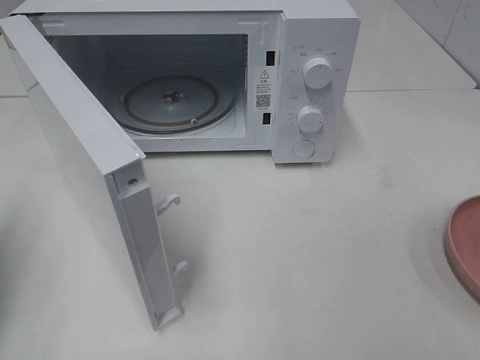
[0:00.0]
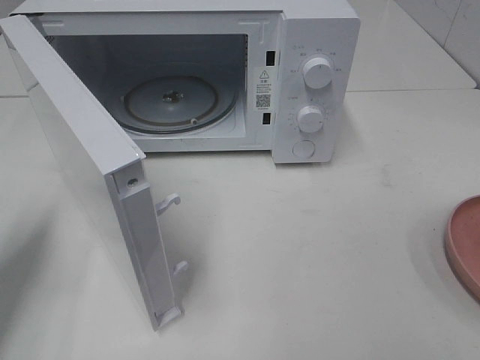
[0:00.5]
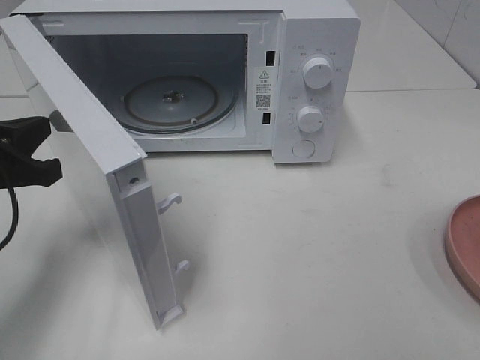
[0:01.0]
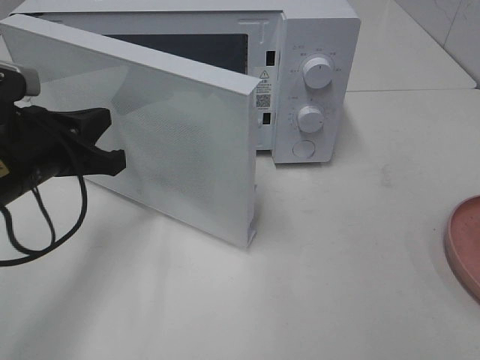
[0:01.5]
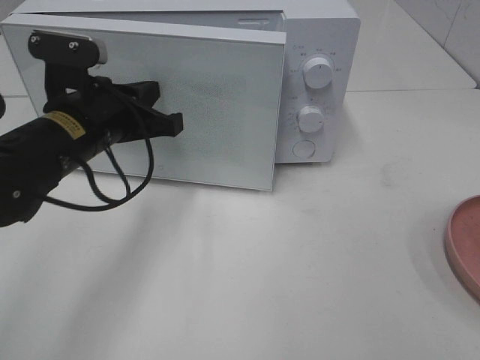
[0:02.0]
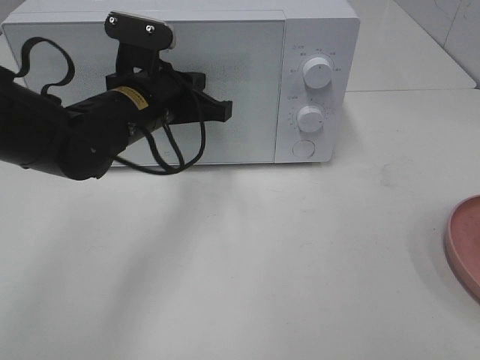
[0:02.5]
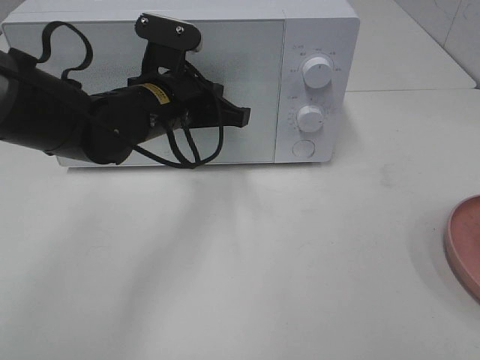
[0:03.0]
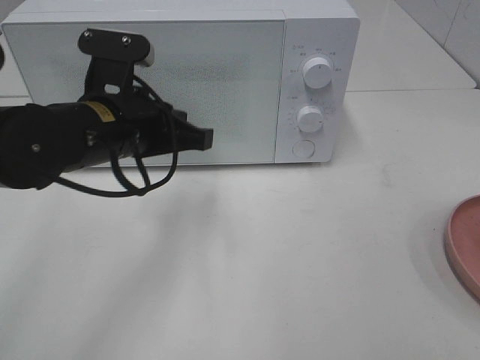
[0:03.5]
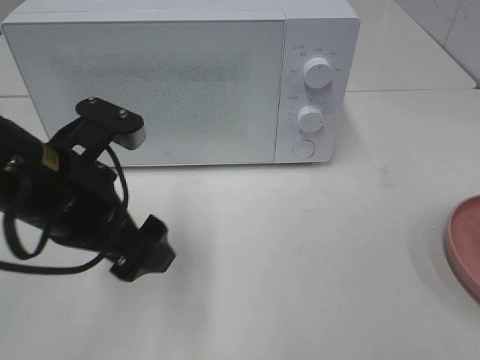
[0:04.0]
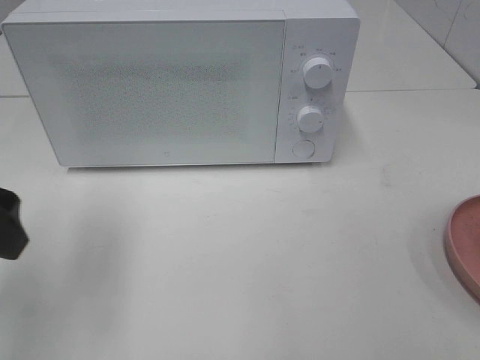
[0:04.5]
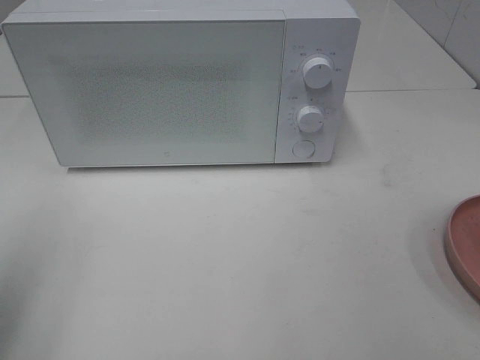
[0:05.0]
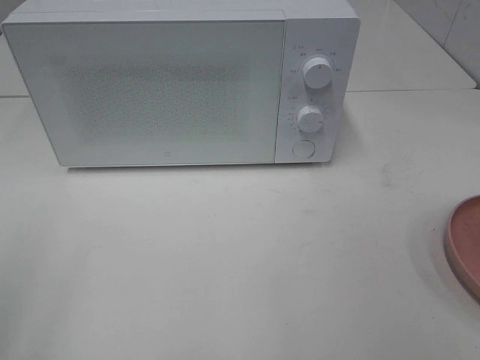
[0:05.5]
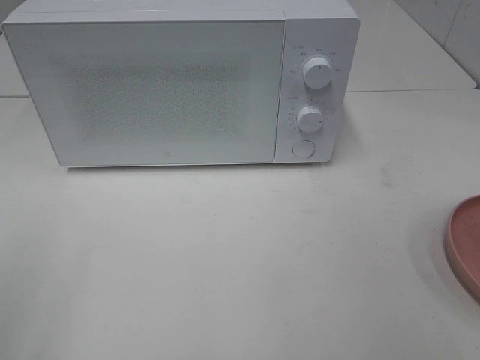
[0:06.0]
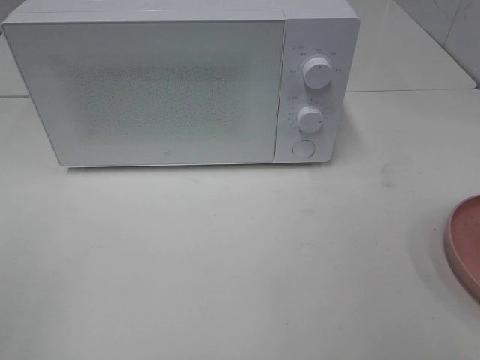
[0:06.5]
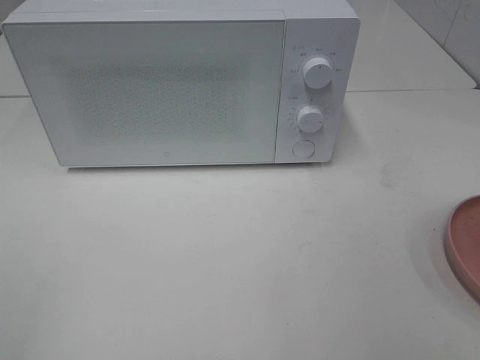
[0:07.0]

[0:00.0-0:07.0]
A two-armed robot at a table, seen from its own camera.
Task of the whole recording: Heat the burger.
Step, 0.0 to 3.5 s: Left hand: close the microwave door.
0.0 to 2.0 s: The left gripper moves to the right and forward, roughly 25 cm.
3.5 to 5.0 s: The left gripper moves to the left, backward and upward, approximately 25 cm, and opens up.
5.0 to 7.0 s: The left gripper is displaced backward by some 15 cm.

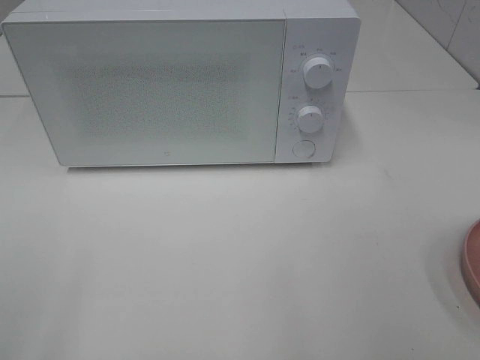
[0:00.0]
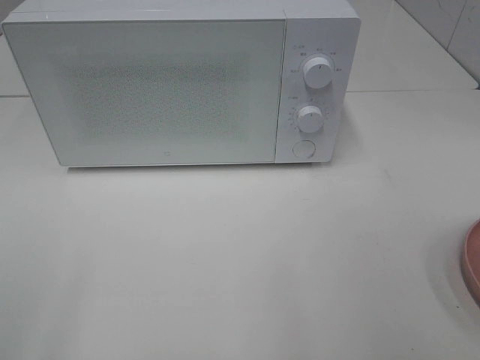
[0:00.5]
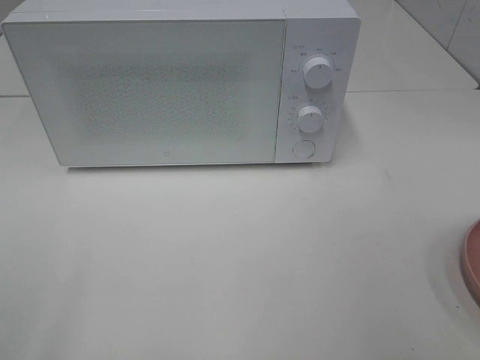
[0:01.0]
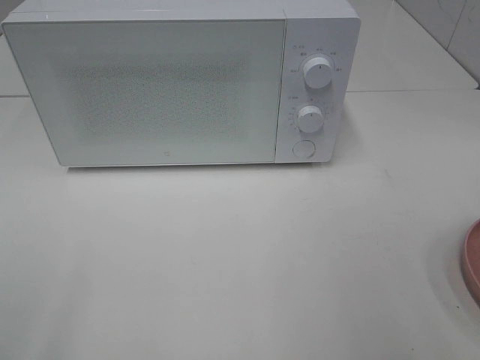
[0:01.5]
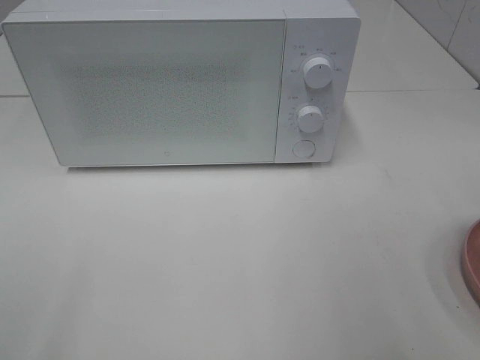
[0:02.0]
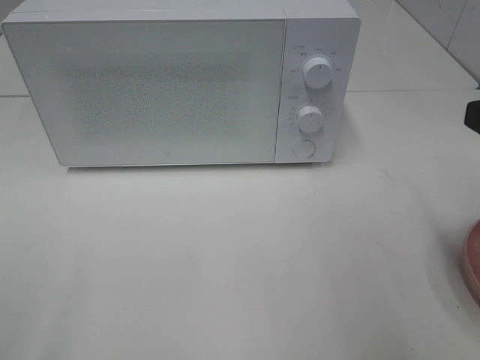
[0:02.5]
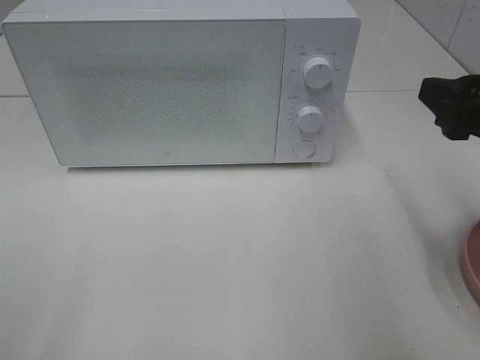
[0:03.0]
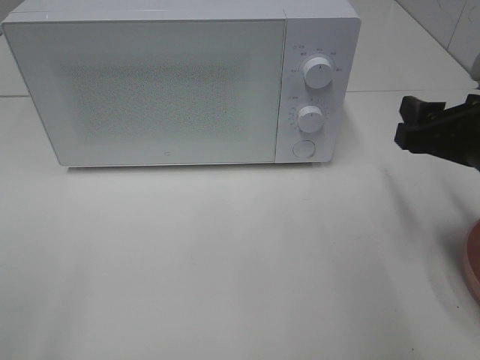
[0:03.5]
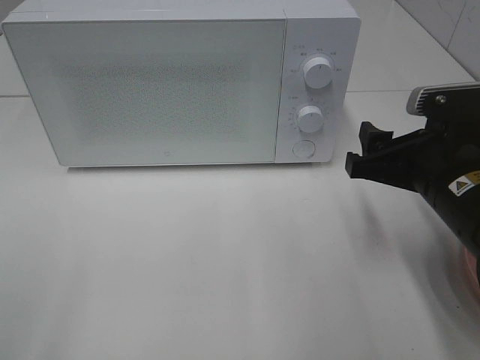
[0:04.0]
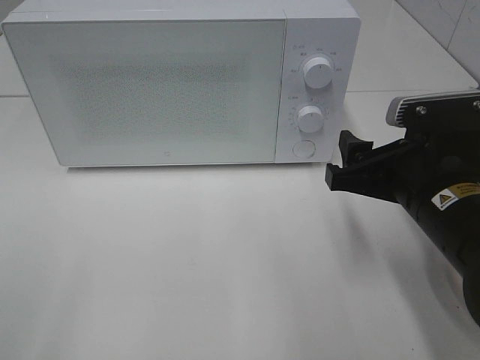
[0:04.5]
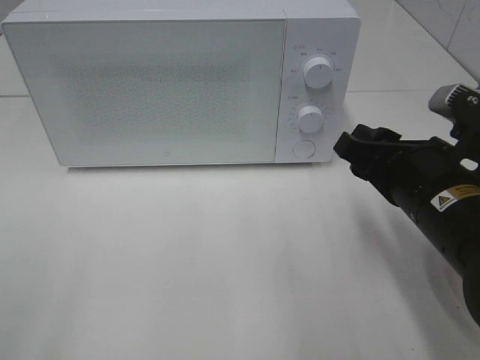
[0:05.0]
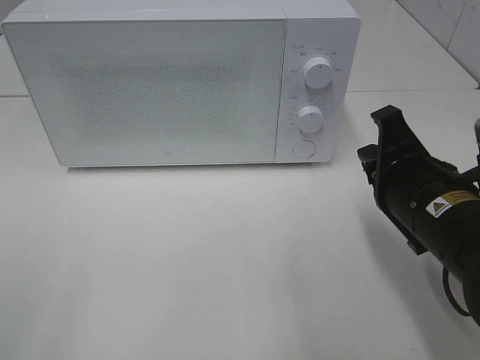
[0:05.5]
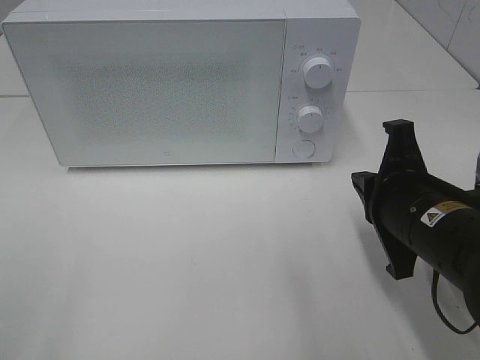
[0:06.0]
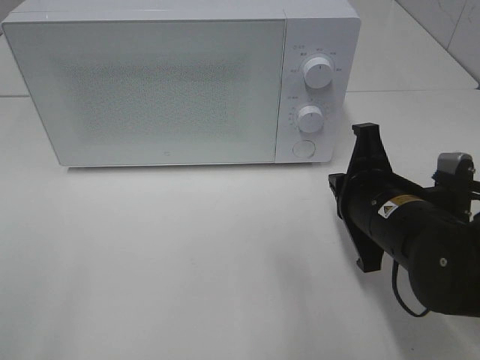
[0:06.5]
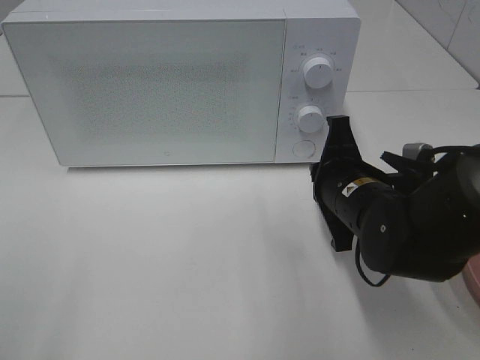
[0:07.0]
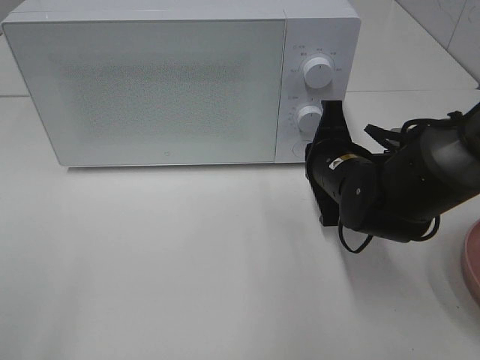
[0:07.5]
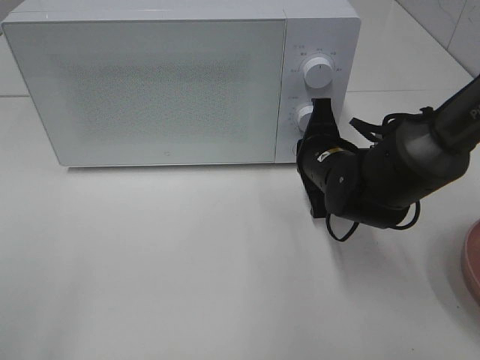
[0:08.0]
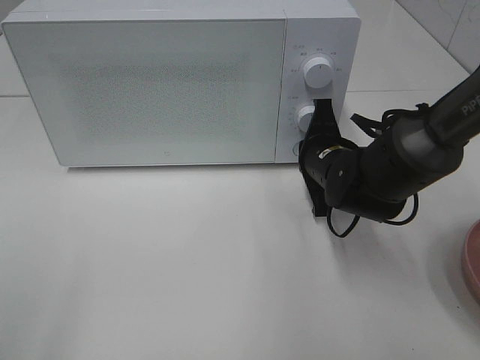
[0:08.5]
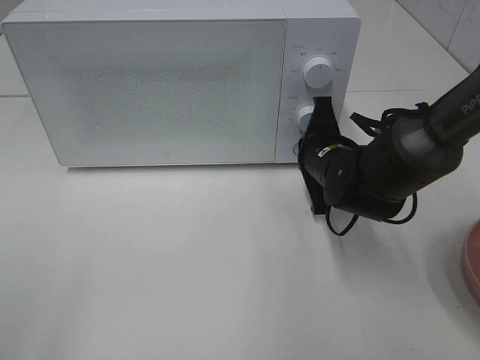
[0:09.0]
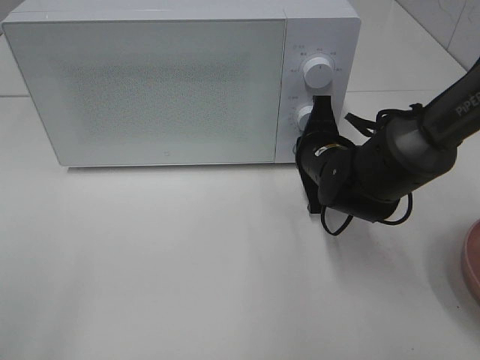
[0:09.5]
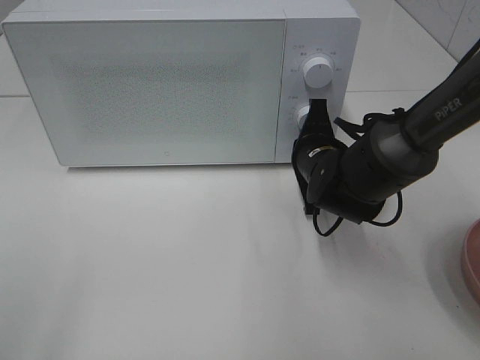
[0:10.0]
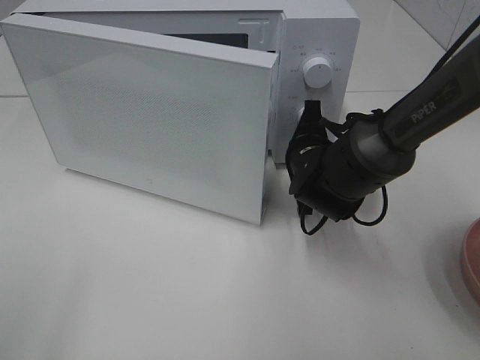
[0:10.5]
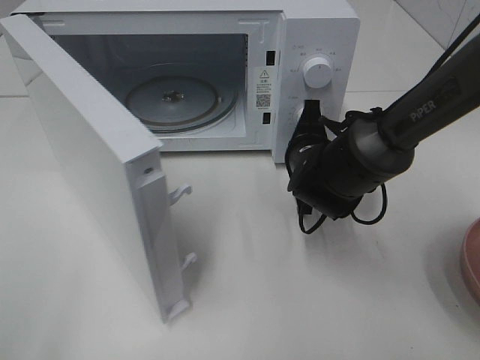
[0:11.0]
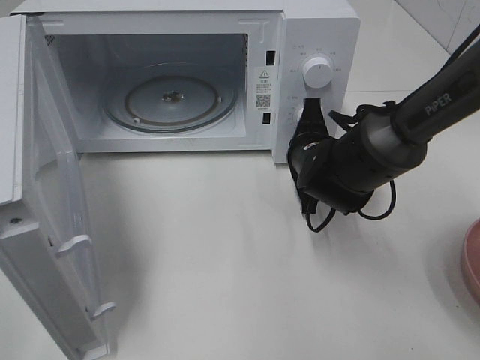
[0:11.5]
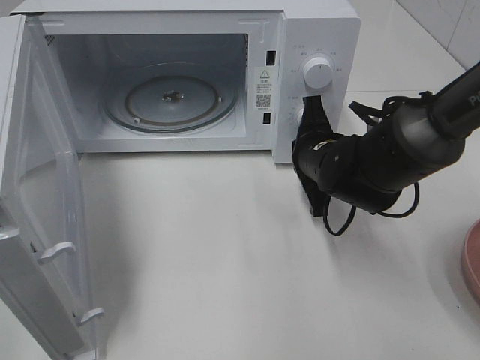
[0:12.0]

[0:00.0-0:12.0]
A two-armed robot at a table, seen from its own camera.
Task of the whole recording: Heat the burger.
Step, 0.0 to 12.0 s: Right hand: press the switch.
2.0 to 4.0 s: The right gripper shifts approximately 20 cm downward, forward and to the left.
4.0 to 6.0 s: The right gripper closes up.
6.0 to 8.0 s: The right gripper travels forward and downward by approximately 15 cm.
8.0 to 10.0 s: The grippers move only a little.

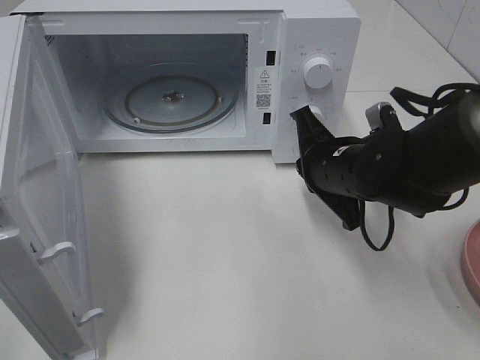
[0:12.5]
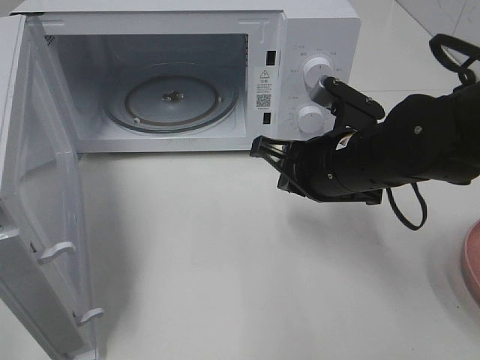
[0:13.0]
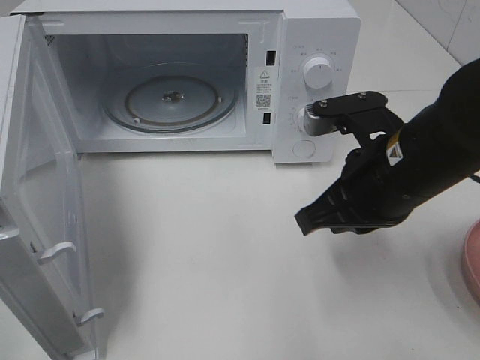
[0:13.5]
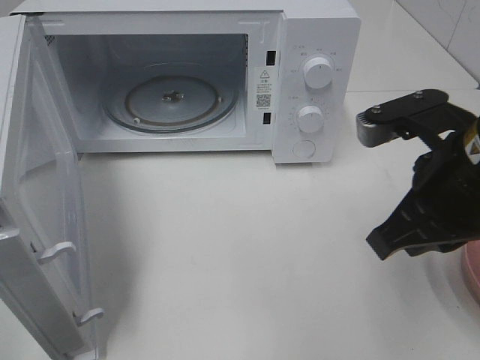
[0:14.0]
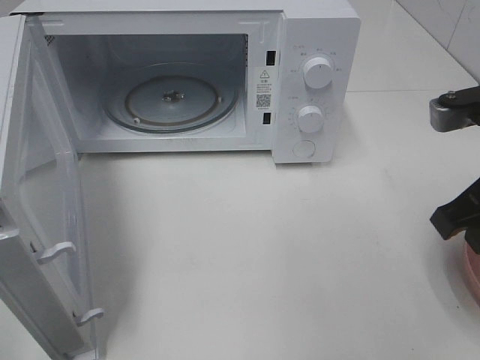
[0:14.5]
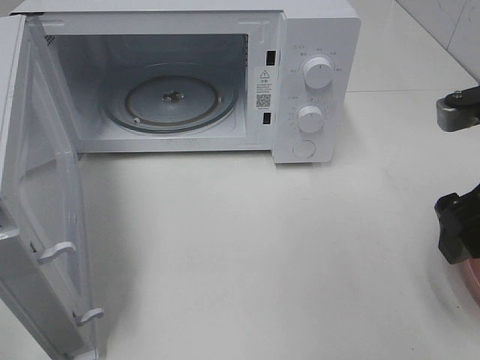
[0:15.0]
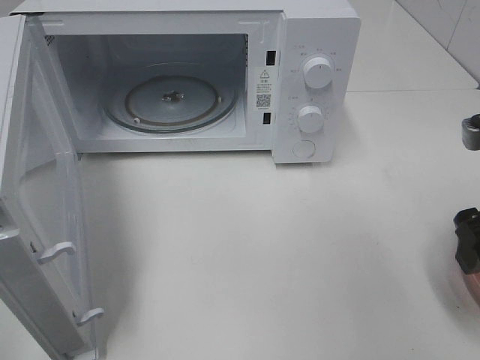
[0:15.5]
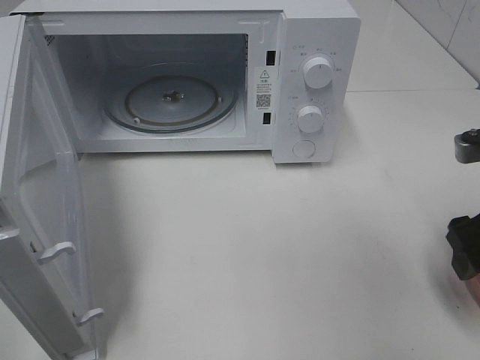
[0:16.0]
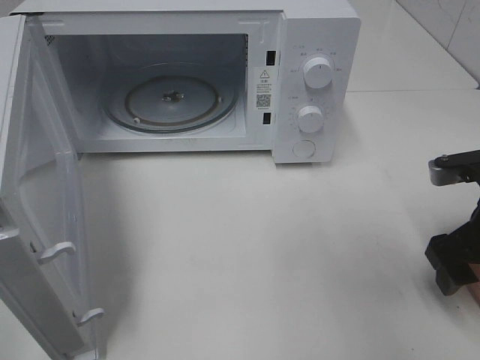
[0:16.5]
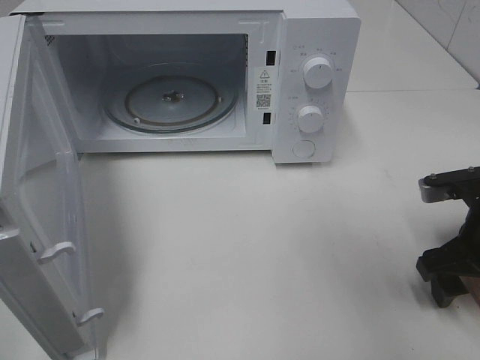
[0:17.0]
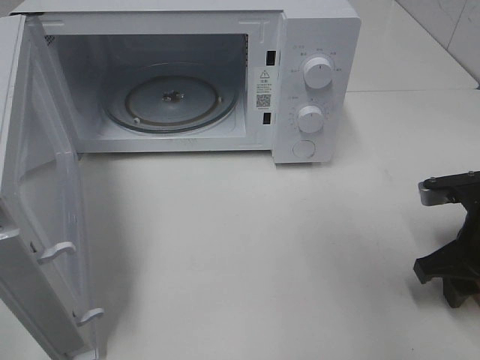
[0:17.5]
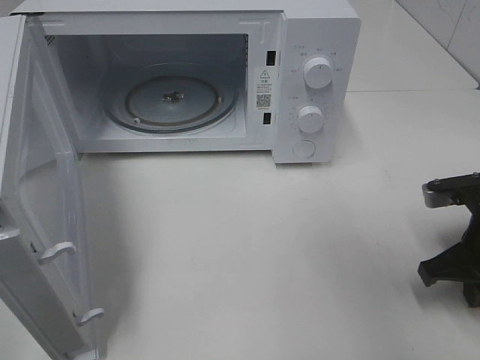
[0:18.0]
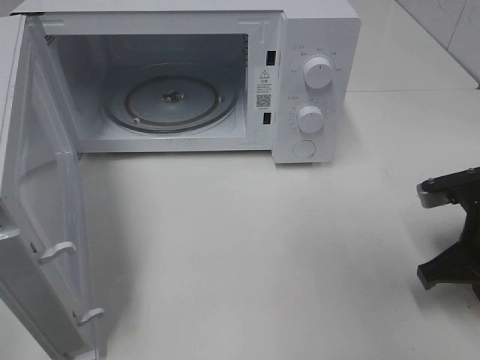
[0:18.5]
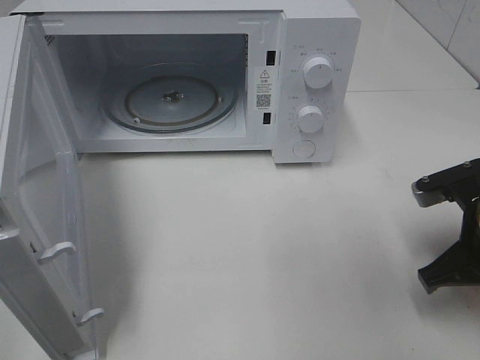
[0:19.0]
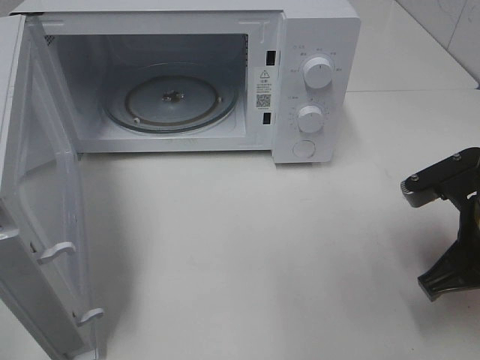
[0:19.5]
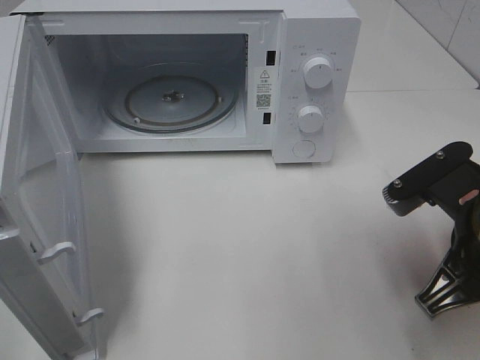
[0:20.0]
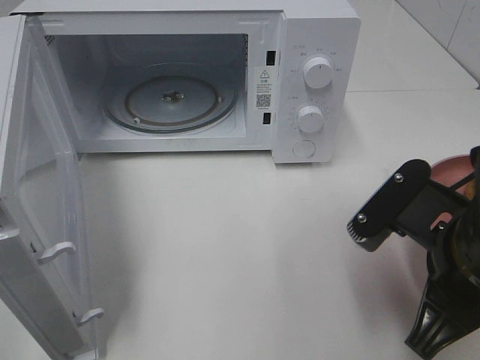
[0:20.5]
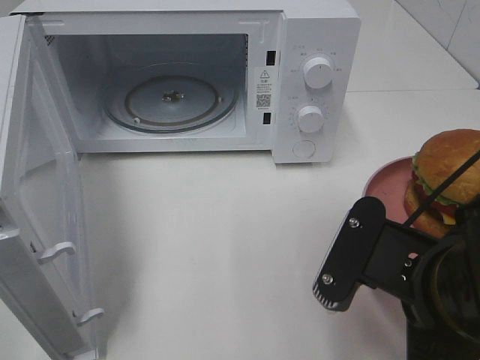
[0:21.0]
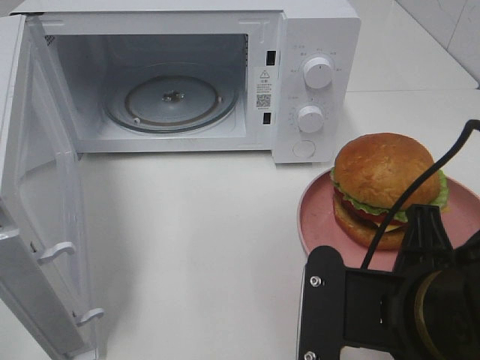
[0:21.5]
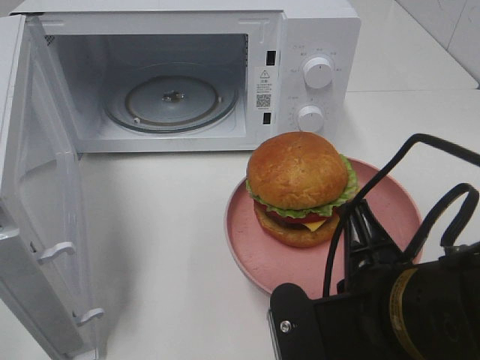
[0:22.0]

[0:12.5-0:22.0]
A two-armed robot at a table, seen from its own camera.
Task of the whole recording: Heat the burger.
Step, 12.5 to 18.5 s: Right hand: grab the plate with the hamburger.
12.5 to 14.5 s: The right gripper travels upward, to the right and backward by about 20 cm.
14.5 to 16.5 s: The right gripper heads downward, covering roughly 10 cm, and opens its fingers.
16.5 to 18.0 s: The right gripper closes its fingers.
18.0 to 20.0 s: The right gripper travels to the left, upward and backward by about 10 cm.
20.0 to 22.0 s: The right gripper travels to the left and backward by approximately 10 cm.
